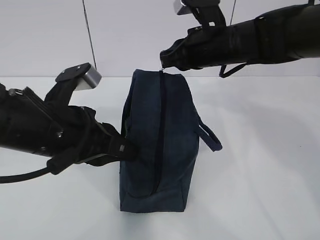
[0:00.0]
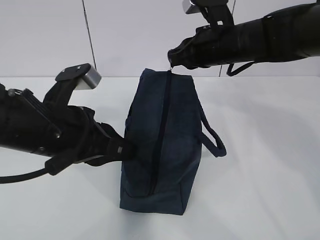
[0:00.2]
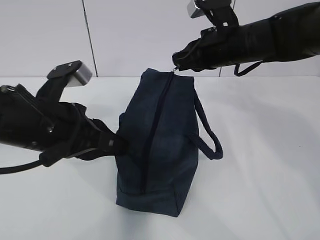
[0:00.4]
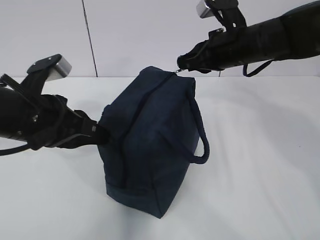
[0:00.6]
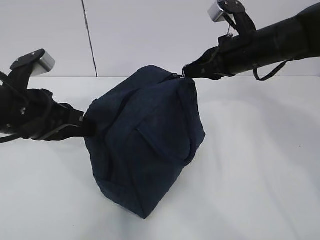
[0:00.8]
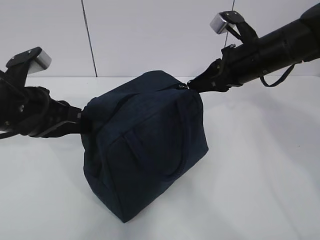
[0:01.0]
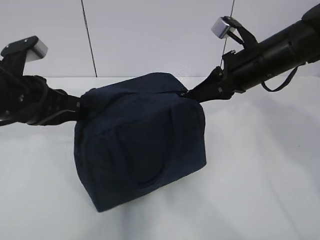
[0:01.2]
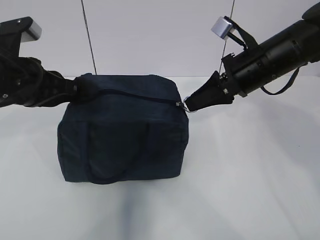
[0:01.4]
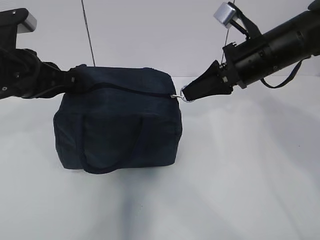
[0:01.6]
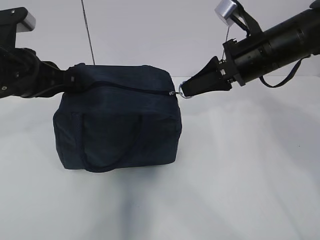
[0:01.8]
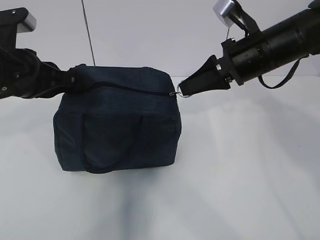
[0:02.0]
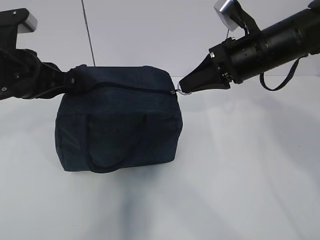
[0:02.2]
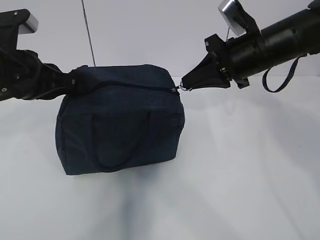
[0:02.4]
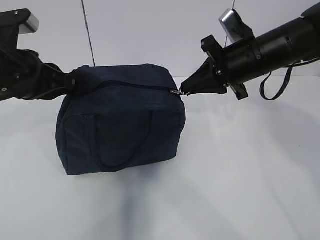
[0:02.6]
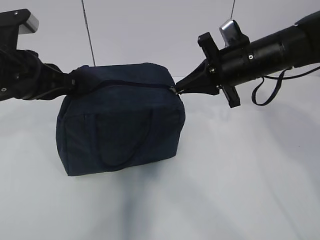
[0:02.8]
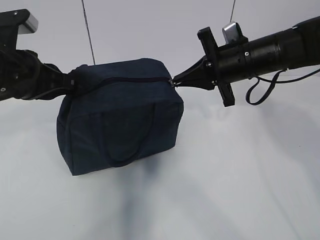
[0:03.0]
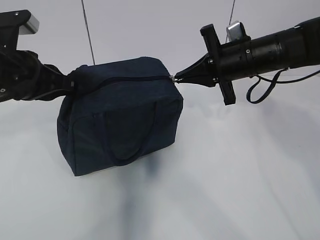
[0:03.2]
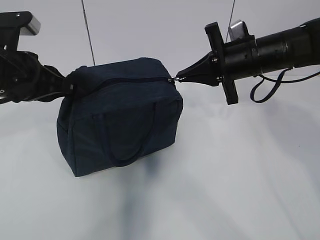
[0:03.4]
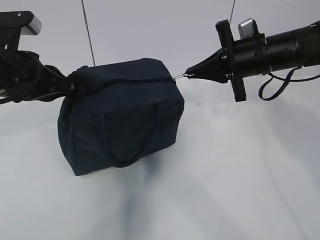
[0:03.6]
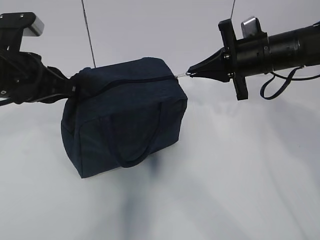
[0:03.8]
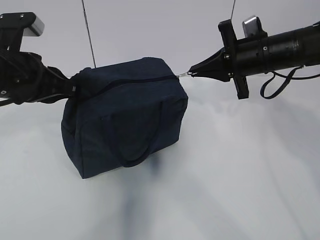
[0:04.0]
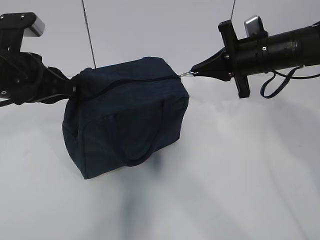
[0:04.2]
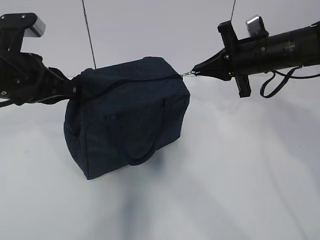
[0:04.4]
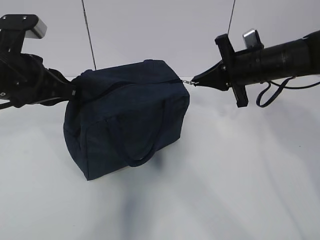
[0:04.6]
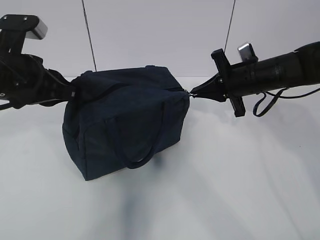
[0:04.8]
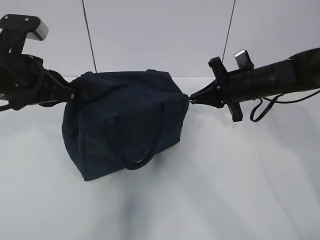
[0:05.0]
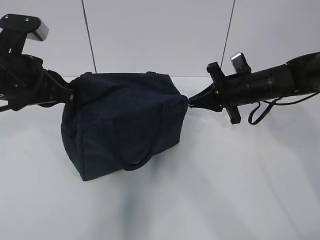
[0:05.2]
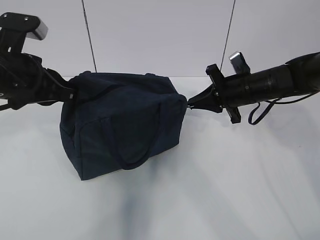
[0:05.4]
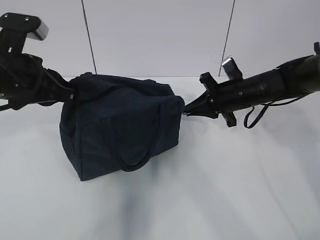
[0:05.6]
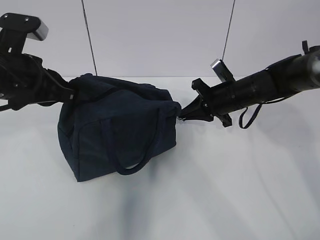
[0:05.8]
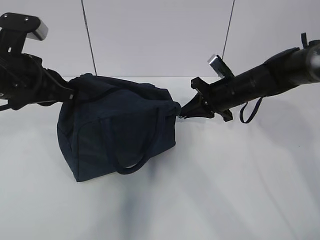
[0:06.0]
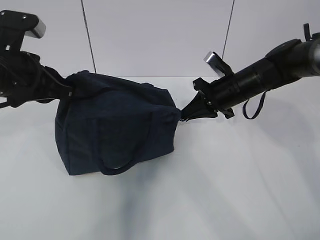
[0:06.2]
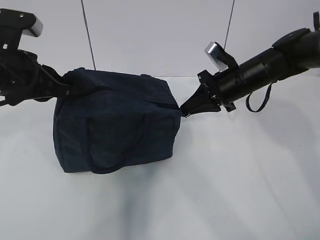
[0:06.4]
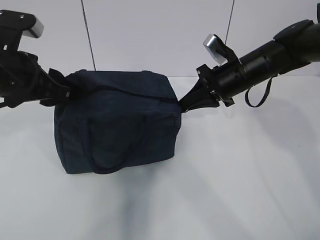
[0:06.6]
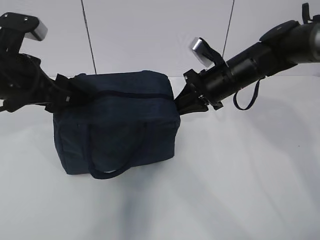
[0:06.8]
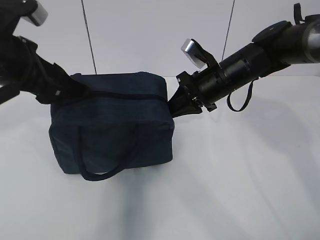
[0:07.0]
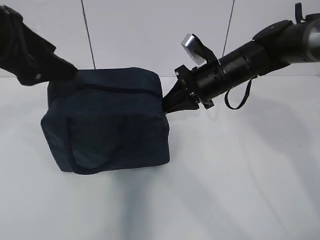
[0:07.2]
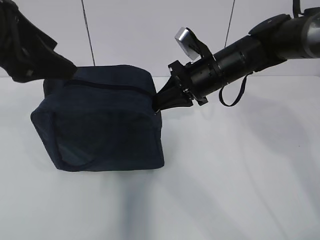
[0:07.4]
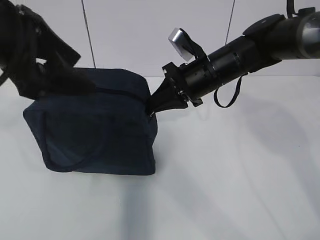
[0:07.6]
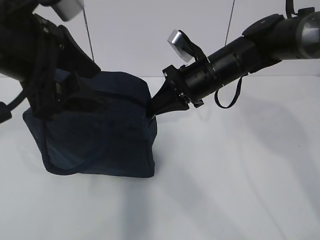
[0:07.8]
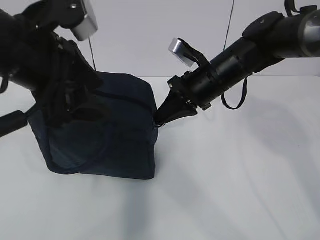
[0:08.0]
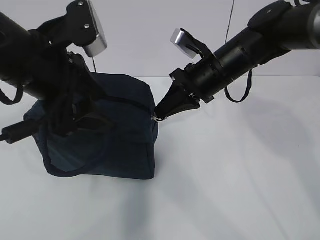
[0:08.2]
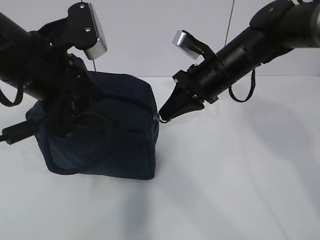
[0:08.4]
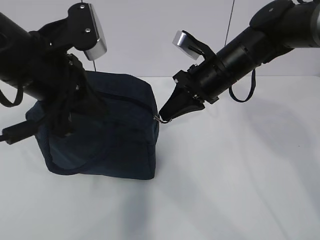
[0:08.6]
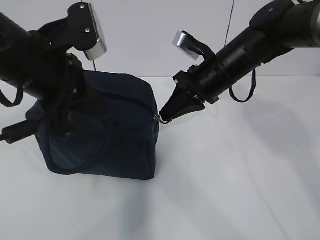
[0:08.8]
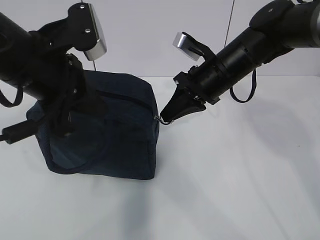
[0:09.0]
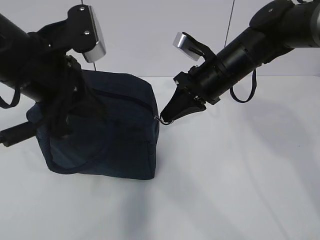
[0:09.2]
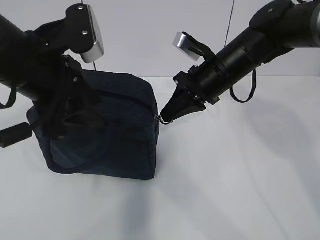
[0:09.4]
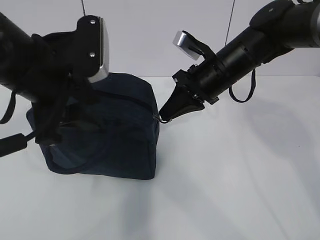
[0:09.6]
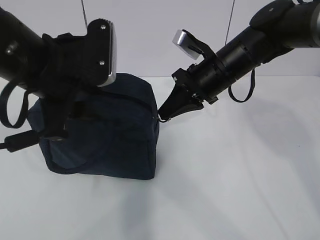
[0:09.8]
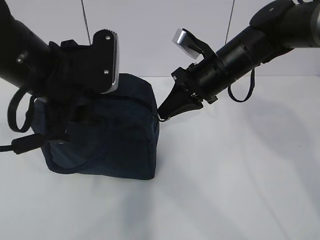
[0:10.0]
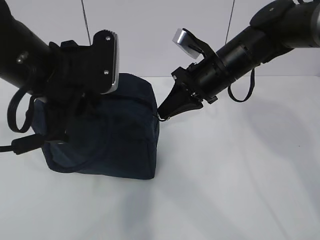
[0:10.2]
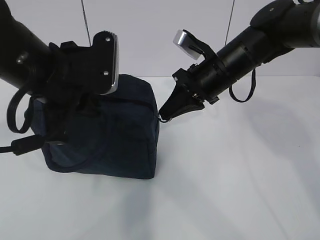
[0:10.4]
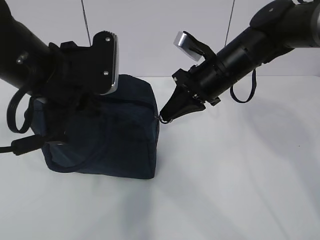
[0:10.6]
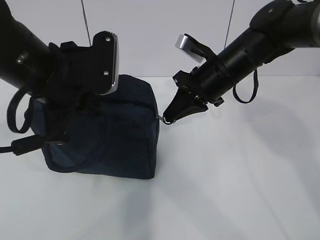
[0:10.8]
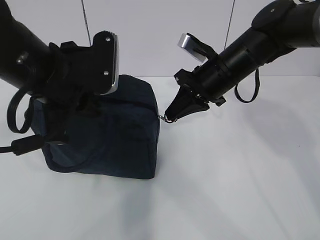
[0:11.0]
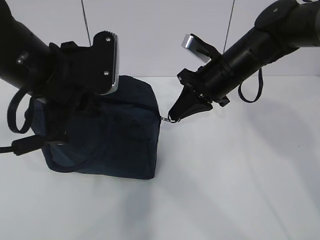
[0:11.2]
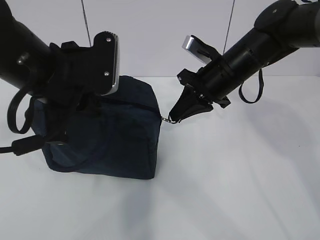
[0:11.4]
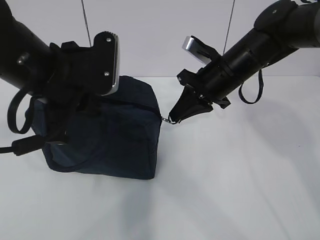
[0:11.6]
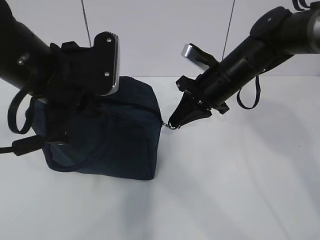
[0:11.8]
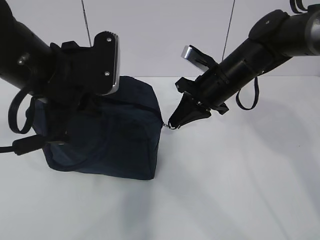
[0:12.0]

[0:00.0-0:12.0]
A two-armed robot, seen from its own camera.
0:00.0 to 0:01.6: The right gripper shifts about 5 cm to the right, while the left gripper goes roughly 10 cm to the left and forward.
0:03.0 to 0:04.4: The grippers stay close to where they were, moving slightly.
0:04.4 to 0:06.0: The right gripper is displaced downward by about 10 cm.
0:06.0 to 0:07.6: The right gripper travels upward and to the left by some 10 cm, while the left gripper travels upward by about 10 cm, and opens up.
0:07.6 to 0:09.0: The left gripper moves some 5 cm, and closes up.
0:09.0 to 0:10.4: The left gripper opens, then closes once more.
0:10.4 to 0:12.0: The grippers make only small movements.

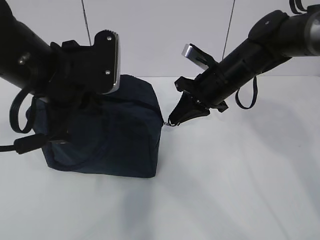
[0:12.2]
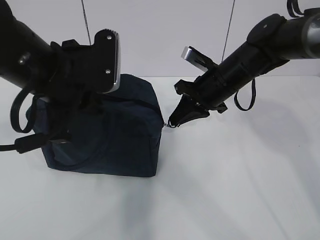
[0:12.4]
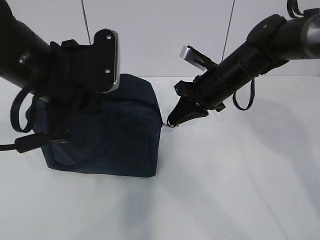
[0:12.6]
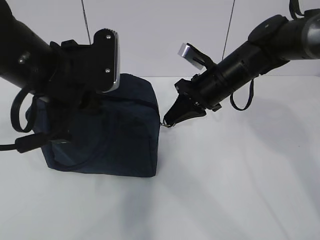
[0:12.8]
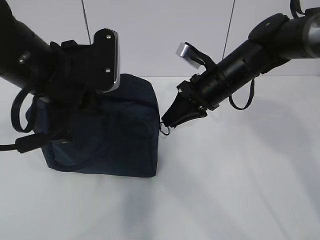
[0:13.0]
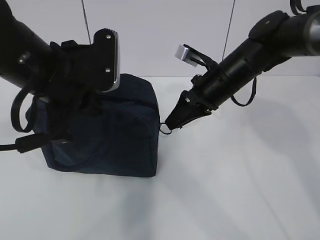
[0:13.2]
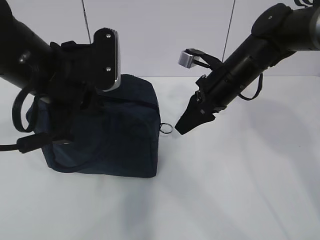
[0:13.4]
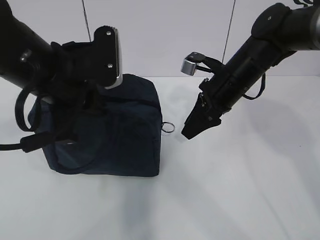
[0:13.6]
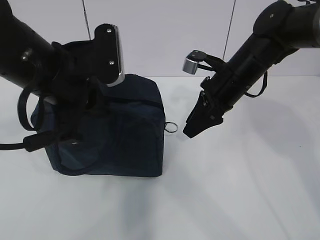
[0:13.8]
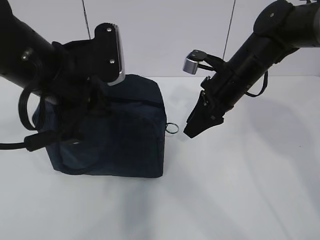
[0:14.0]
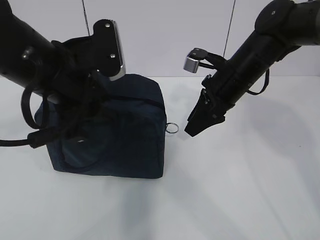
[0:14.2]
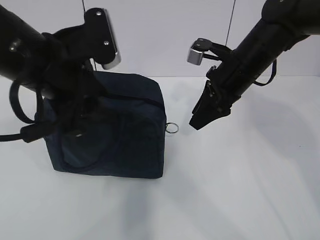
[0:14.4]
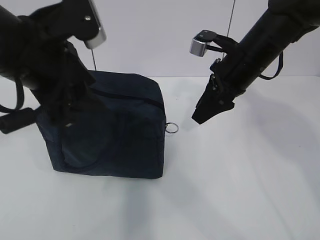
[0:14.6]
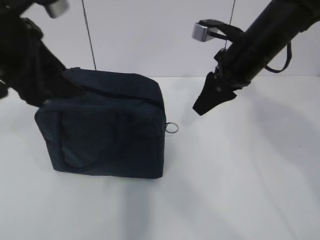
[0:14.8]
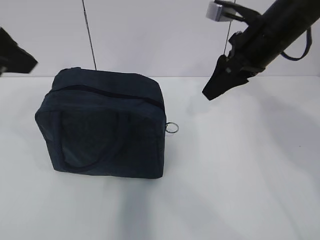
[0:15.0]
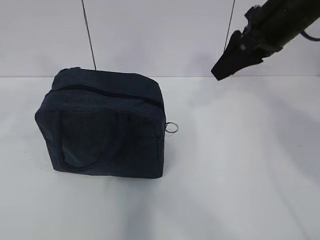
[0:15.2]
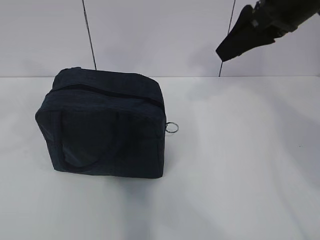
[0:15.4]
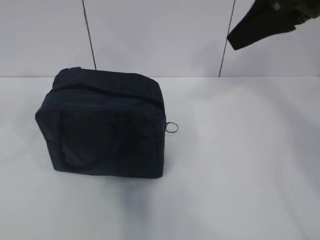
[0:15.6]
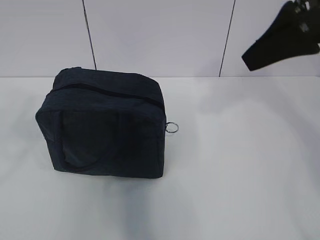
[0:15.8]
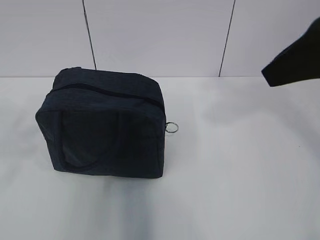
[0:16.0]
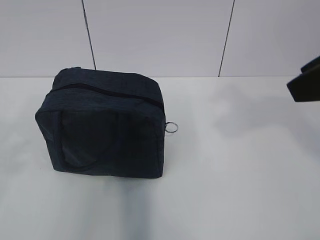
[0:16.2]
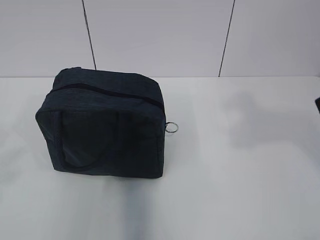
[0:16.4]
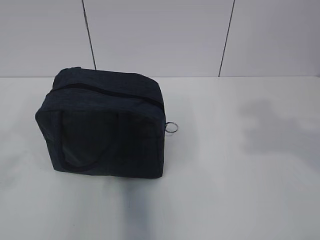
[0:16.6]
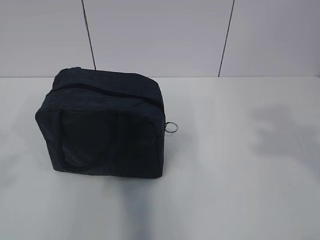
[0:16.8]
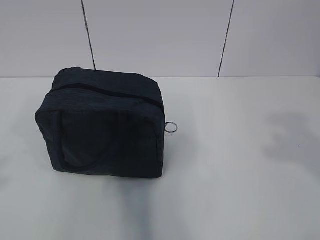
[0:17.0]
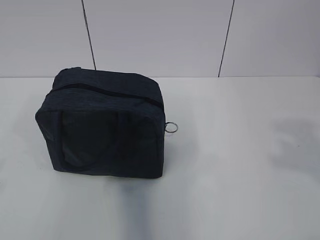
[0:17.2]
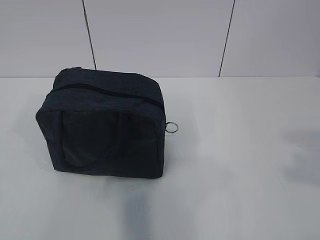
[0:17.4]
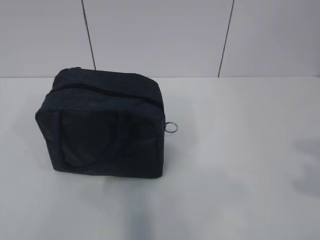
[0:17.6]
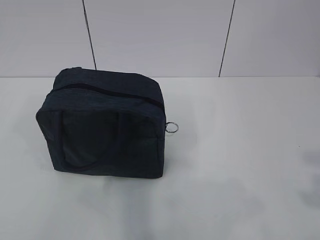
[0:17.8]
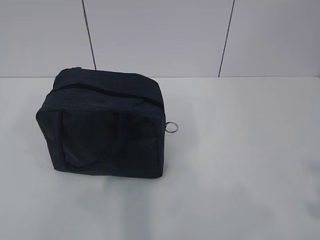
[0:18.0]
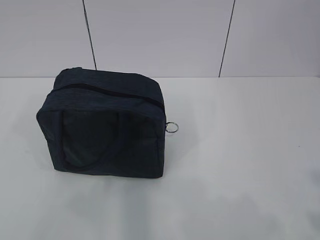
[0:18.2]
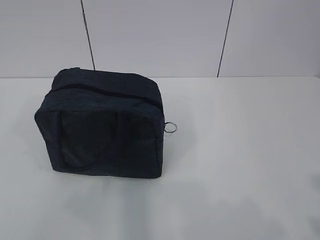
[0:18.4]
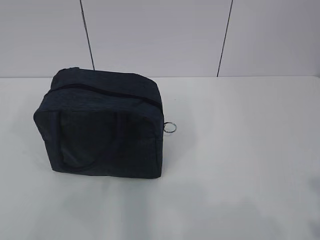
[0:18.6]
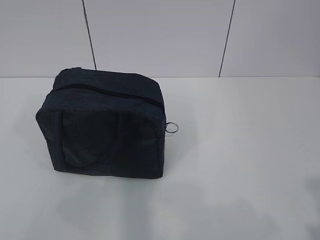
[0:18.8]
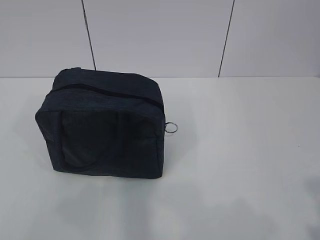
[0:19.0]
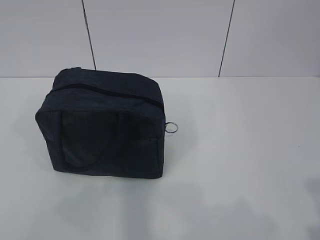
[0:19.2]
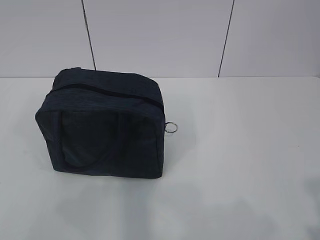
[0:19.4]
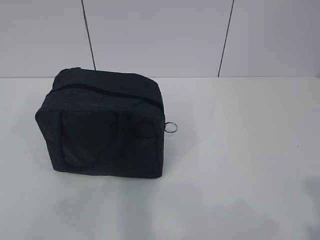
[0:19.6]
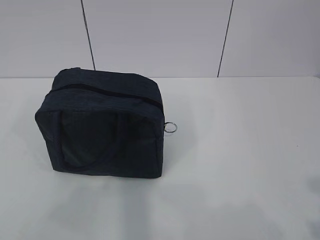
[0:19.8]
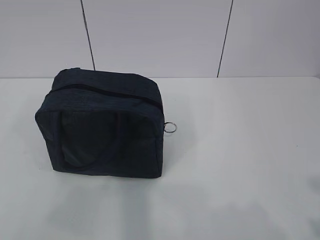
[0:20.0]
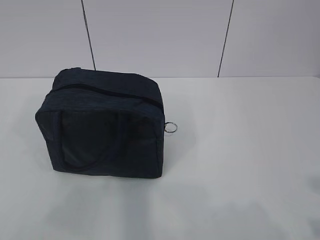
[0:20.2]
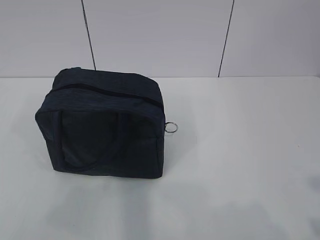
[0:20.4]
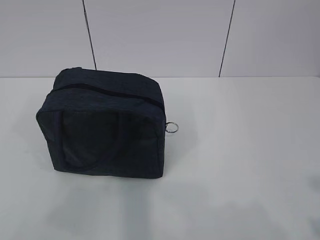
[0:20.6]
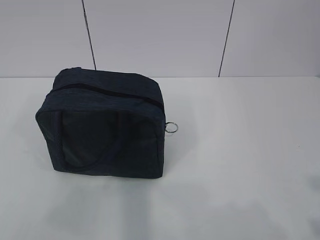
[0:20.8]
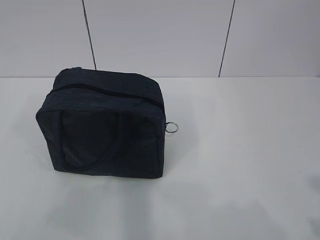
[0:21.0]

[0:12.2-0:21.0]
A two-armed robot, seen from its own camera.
0:12.2 to 0:13.6: The right gripper opens up.
0:13.6 to 0:15.2: The left gripper shifts approximately 15 cm to the left and upward, and opens. Meanwhile the right gripper moves upward, some 15 cm.
0:15.2 to 0:16.6: The grippers both shift backward by approximately 20 cm.
0:16.6 to 0:18.0: The left gripper shifts some 5 cm backward. Meanwhile the right gripper shifts approximately 15 cm backward, downward and to the right.

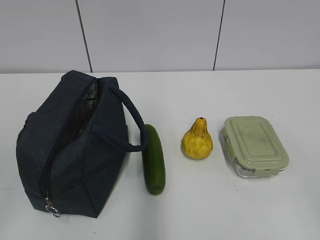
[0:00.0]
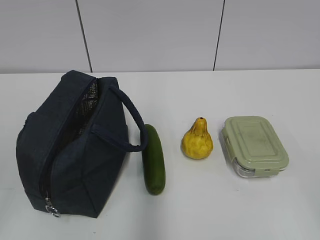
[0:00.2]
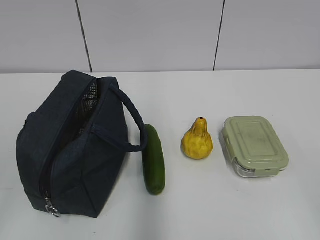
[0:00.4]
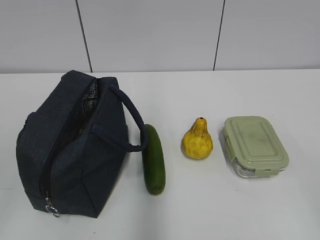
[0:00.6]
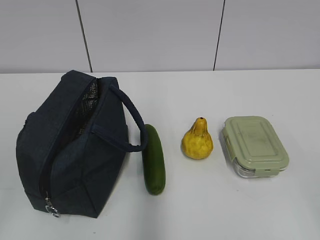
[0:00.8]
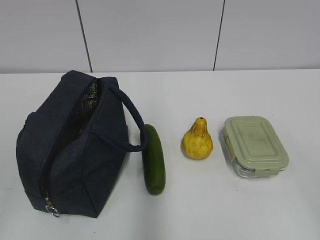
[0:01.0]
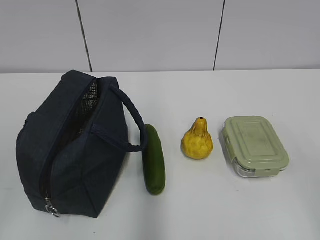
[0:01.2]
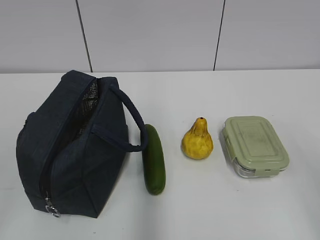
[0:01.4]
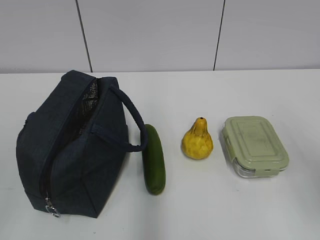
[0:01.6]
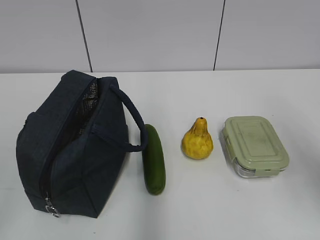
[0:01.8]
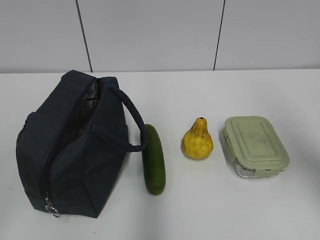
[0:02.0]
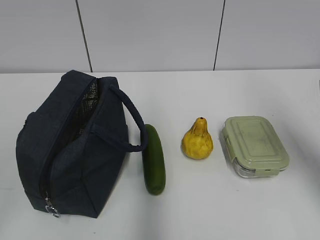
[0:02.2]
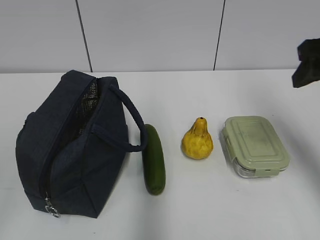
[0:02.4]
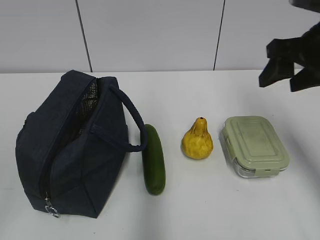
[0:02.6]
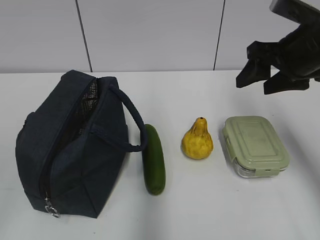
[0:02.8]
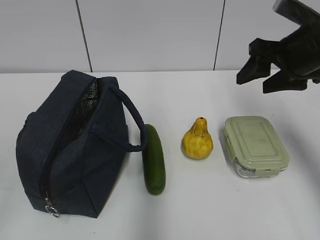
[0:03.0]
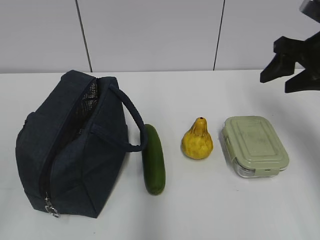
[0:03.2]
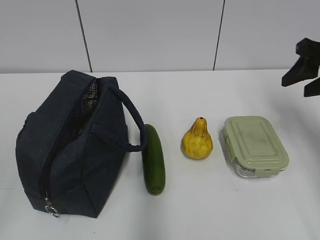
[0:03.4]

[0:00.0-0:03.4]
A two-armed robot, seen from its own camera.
0:01.6 to 0:03.4: The right gripper moves forward, roughly 25 cm.
